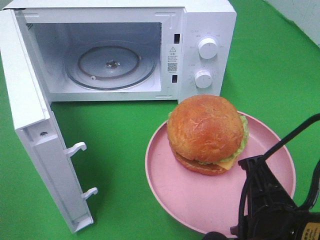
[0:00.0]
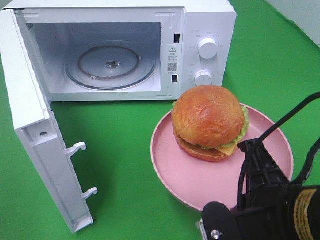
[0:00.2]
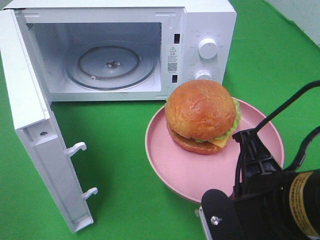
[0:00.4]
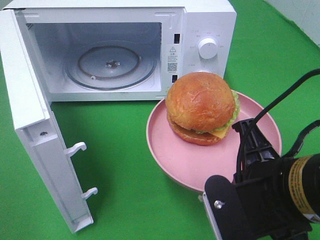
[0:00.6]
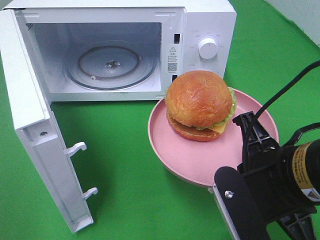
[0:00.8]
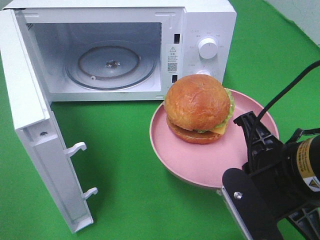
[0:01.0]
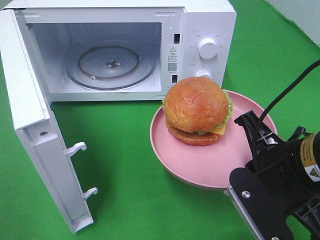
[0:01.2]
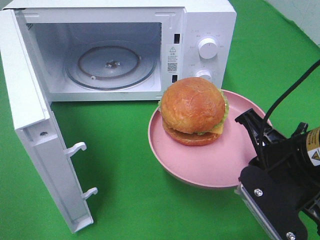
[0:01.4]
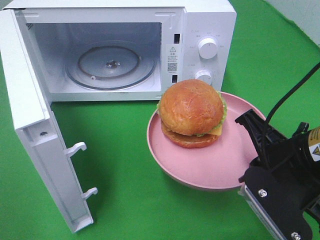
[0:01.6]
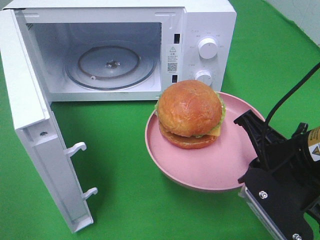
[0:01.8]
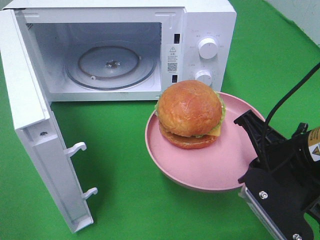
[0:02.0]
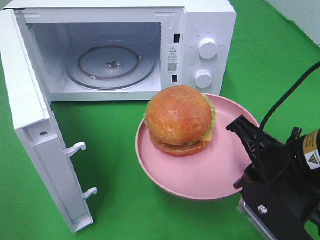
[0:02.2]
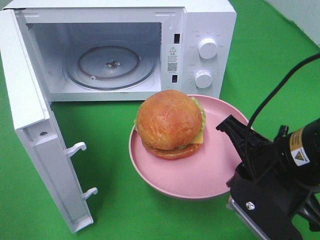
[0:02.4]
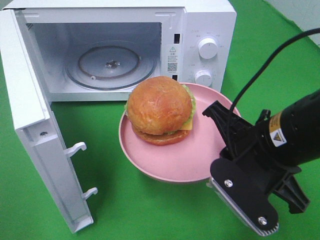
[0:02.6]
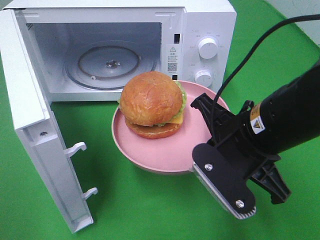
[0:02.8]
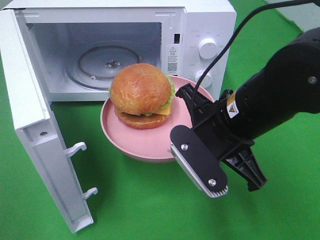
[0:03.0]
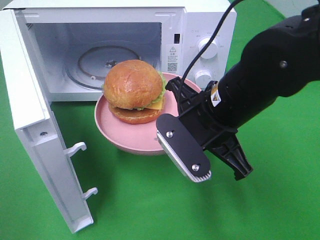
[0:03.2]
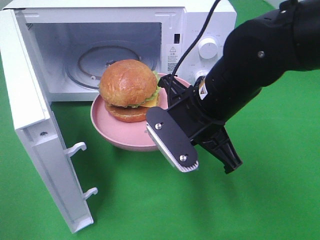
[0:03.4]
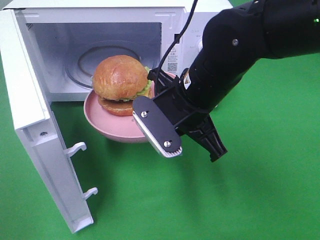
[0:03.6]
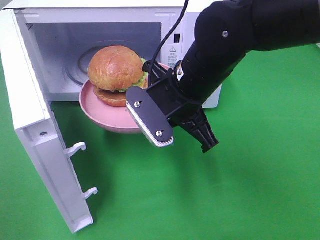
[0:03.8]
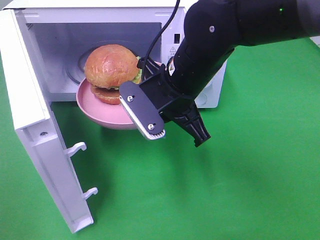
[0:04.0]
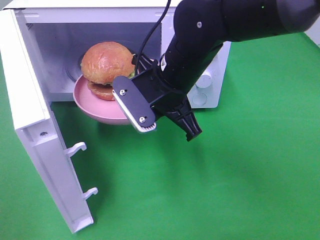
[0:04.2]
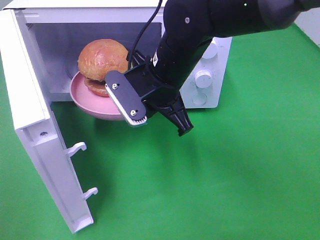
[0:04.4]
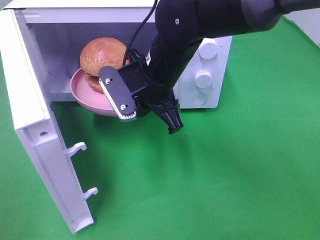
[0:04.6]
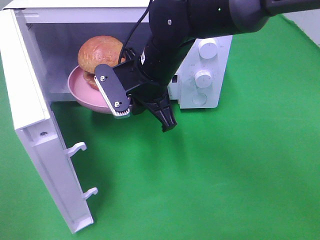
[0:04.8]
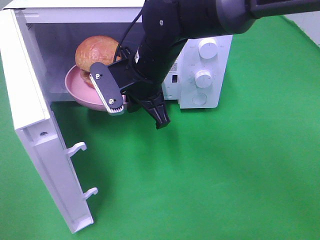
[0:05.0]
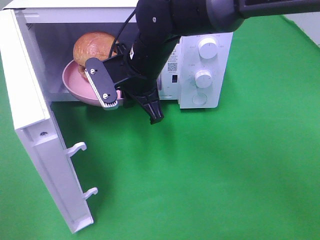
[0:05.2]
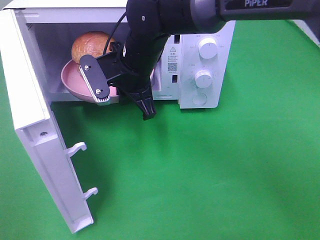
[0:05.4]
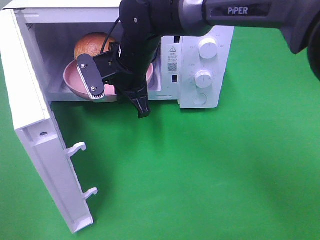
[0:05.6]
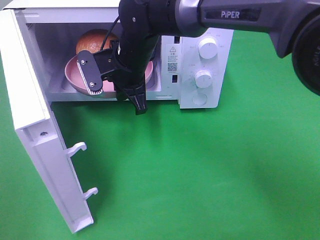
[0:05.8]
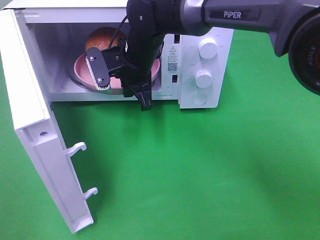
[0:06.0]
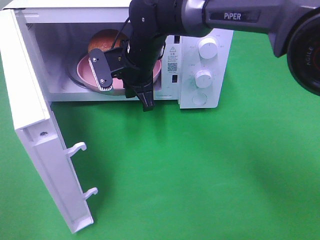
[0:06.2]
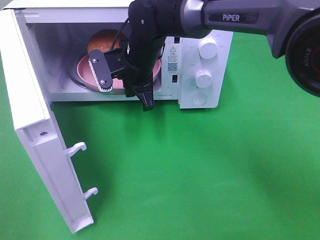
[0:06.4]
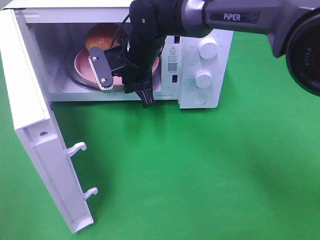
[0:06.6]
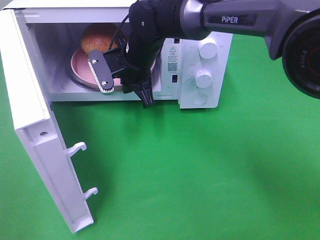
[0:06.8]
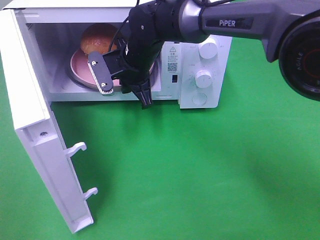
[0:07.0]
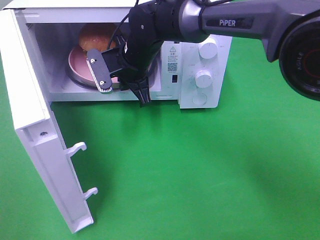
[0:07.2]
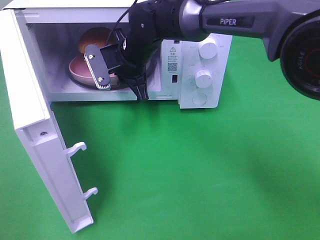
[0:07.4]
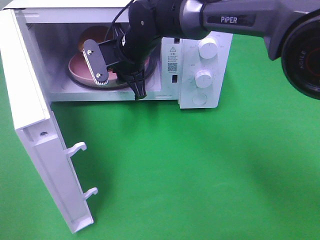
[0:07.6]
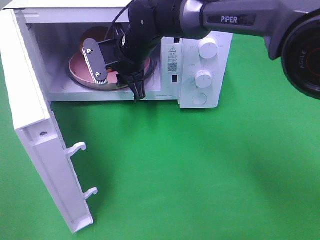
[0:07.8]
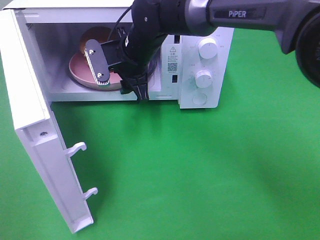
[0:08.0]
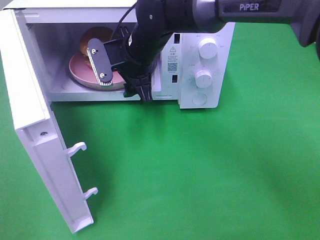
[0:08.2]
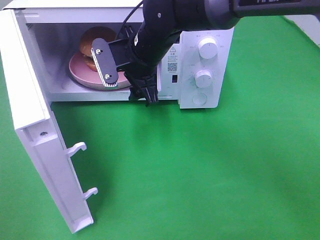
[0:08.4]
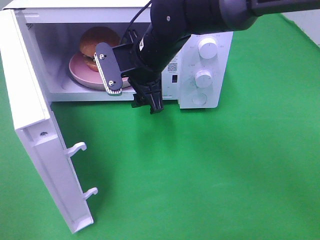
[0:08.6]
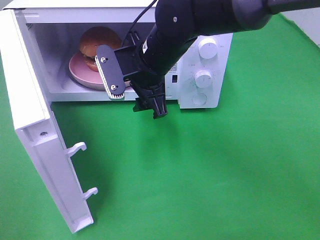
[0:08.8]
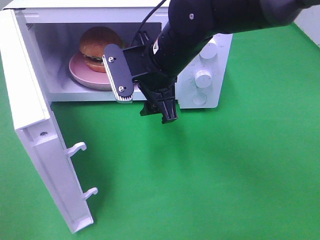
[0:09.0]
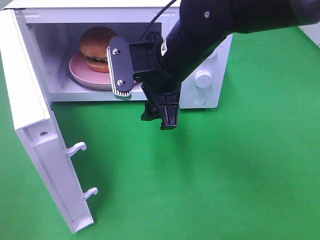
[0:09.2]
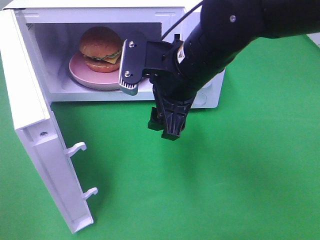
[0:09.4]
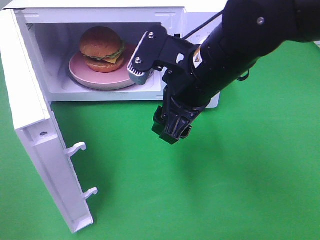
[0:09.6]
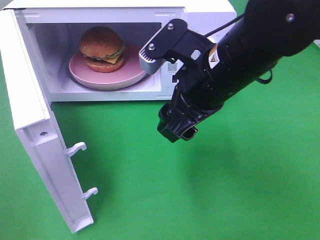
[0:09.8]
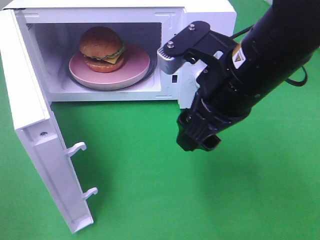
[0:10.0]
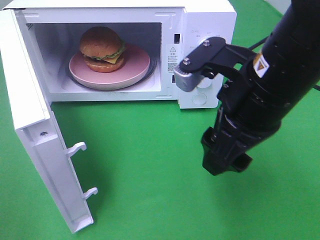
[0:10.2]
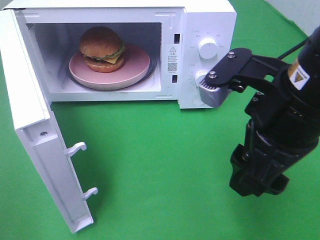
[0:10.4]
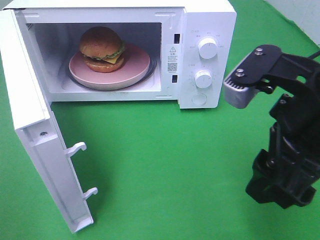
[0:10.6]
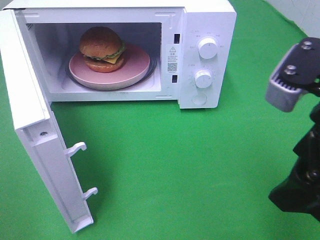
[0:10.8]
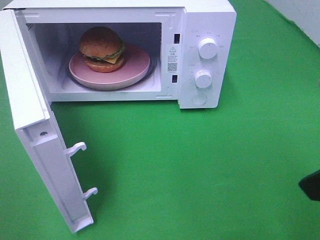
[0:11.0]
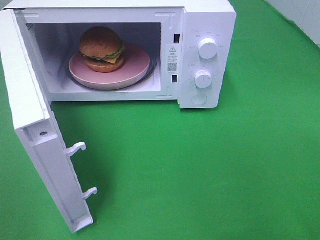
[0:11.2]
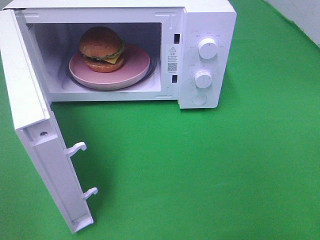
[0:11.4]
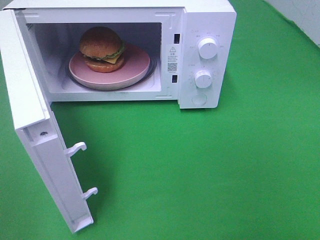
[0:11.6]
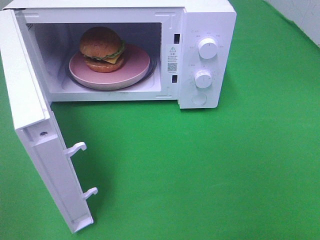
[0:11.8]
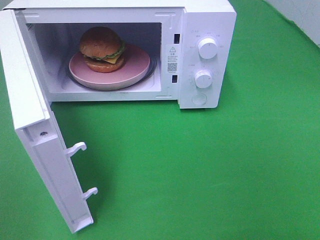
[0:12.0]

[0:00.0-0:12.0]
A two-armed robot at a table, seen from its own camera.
Task of the whole recording: Heat the burger.
Step, 0:00.0 to 0:09.0: Right hand: place the plate in the microwave.
0:00.0 to 0:01.6: The right gripper heads forward and to the right, covering about 10 cm.
0:01.6 to 0:03.0: The right gripper travels to the left and forward by roughly 10 cm.
0:03.0 to 0:04.4: The right gripper travels forward and to the left by about 10 cm.
0:04.4 to 0:06.0: The right gripper moves forward, roughly 10 cm.
0:06.0 to 0:07.6: The right gripper opens.
0:07.6 to 0:09.0: The right gripper shifts approximately 10 cm backward and to the right, and opens up.
0:09.0 to 0:10.4: The right gripper travels backward and to the right by about 20 cm.
0:10.4 to 0:12.0: The right gripper travels backward and to the right by approximately 25 cm.

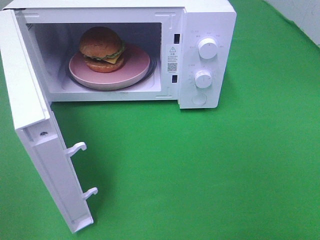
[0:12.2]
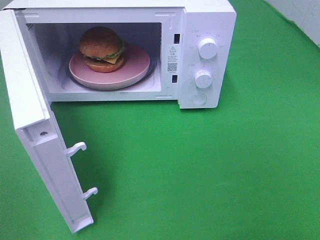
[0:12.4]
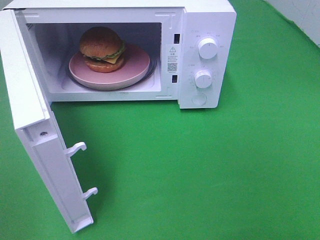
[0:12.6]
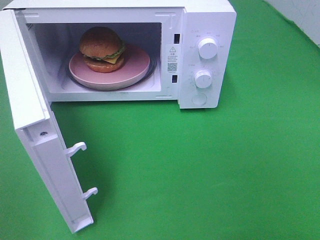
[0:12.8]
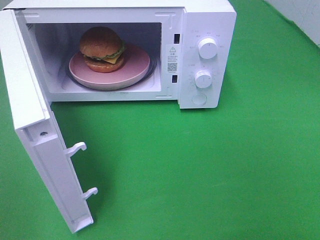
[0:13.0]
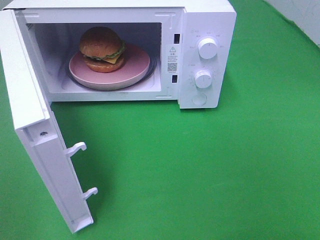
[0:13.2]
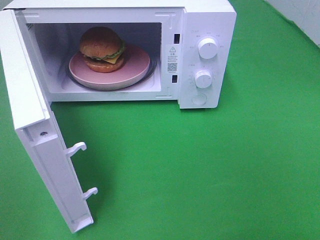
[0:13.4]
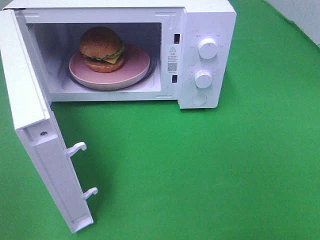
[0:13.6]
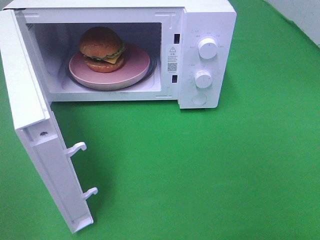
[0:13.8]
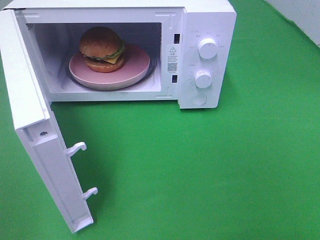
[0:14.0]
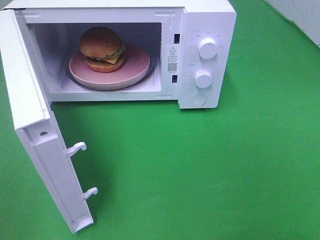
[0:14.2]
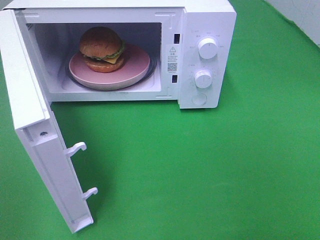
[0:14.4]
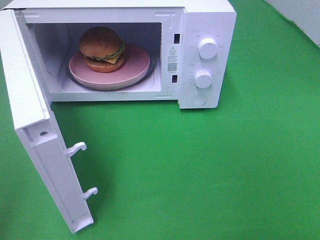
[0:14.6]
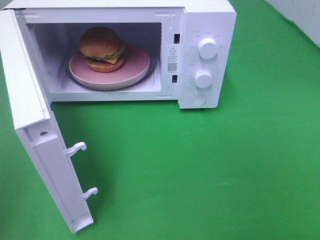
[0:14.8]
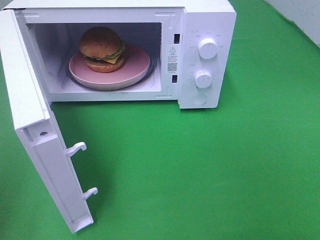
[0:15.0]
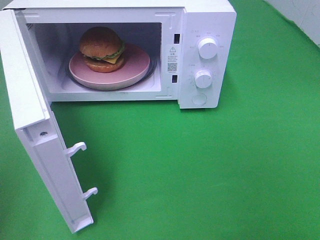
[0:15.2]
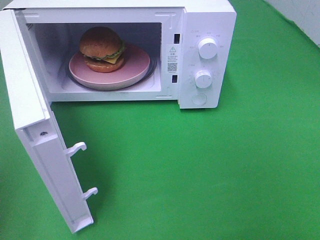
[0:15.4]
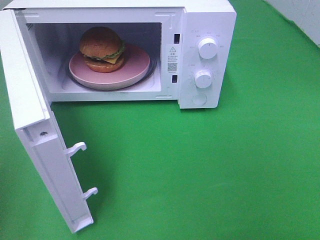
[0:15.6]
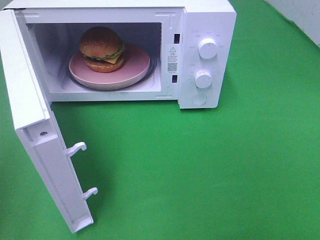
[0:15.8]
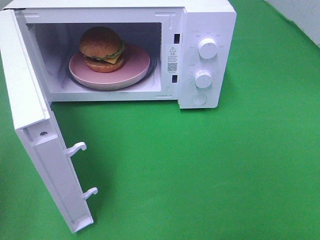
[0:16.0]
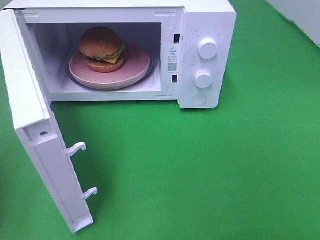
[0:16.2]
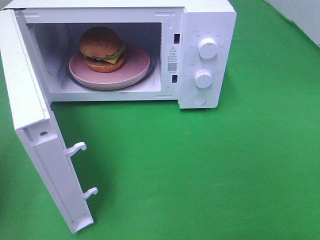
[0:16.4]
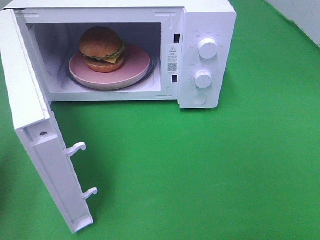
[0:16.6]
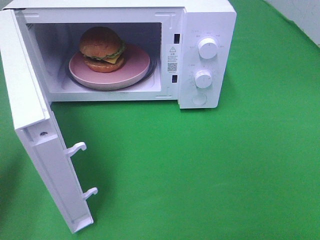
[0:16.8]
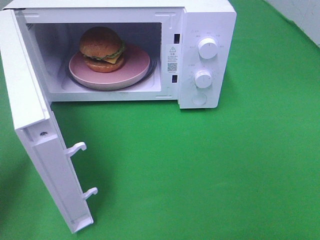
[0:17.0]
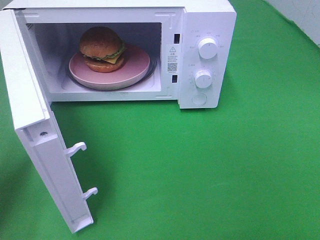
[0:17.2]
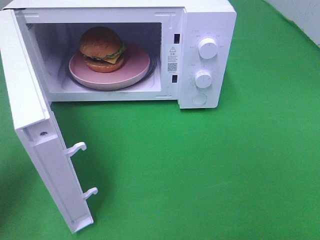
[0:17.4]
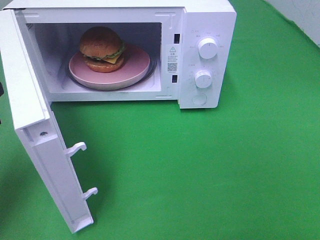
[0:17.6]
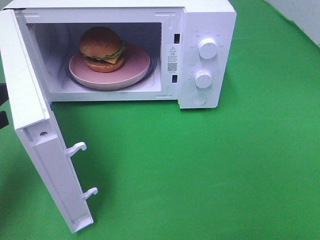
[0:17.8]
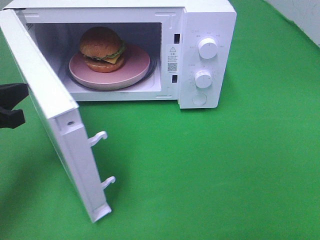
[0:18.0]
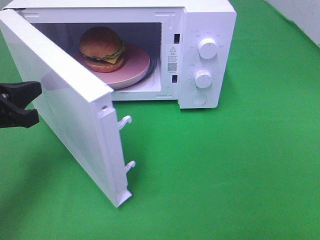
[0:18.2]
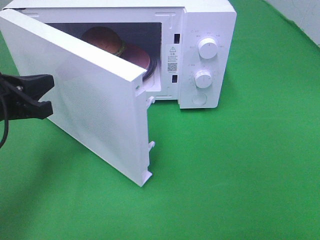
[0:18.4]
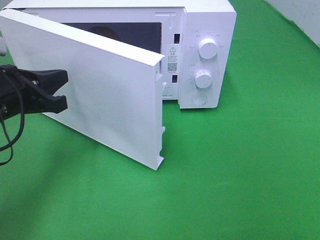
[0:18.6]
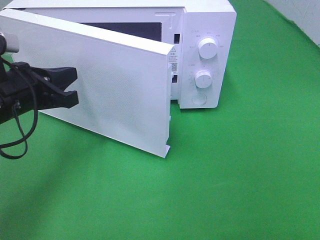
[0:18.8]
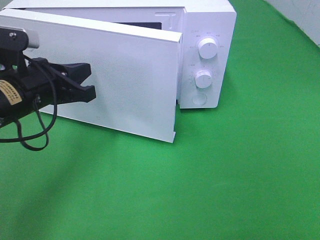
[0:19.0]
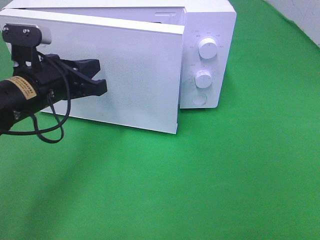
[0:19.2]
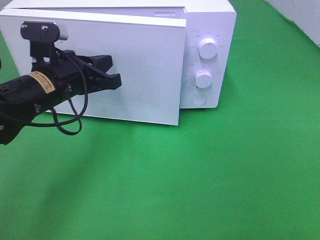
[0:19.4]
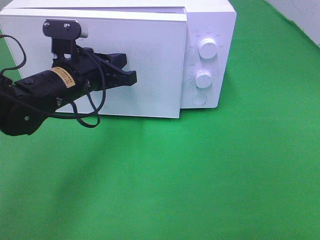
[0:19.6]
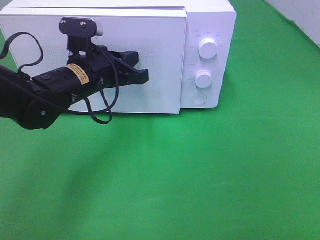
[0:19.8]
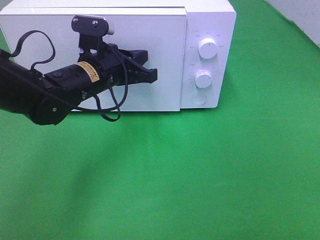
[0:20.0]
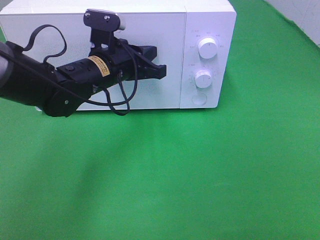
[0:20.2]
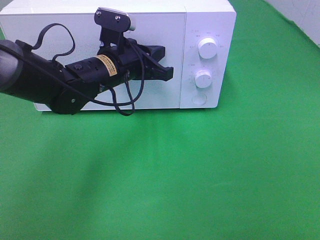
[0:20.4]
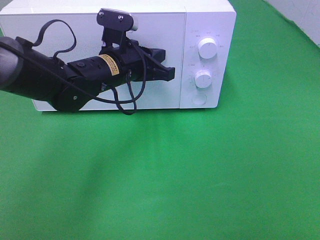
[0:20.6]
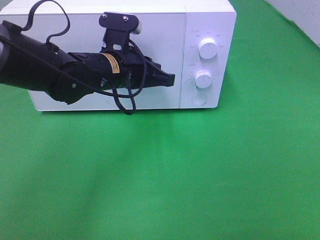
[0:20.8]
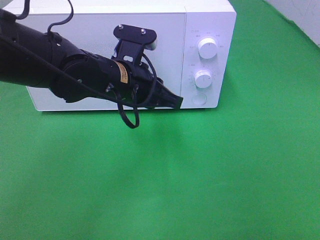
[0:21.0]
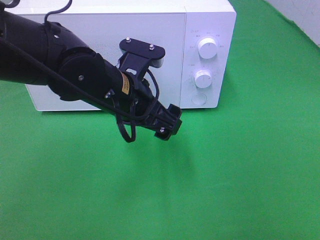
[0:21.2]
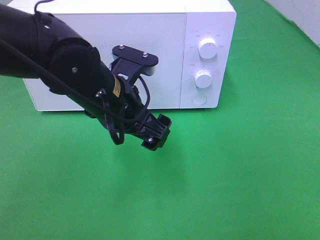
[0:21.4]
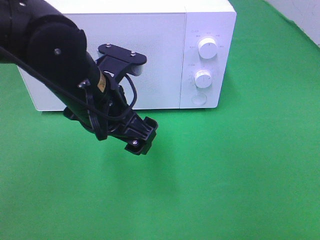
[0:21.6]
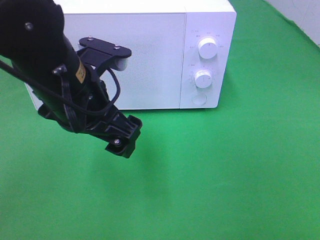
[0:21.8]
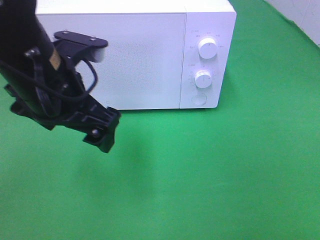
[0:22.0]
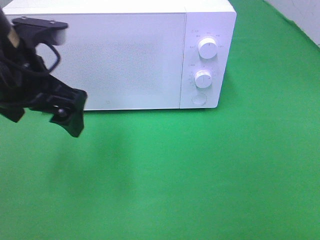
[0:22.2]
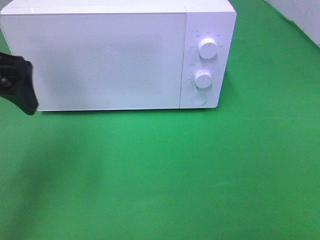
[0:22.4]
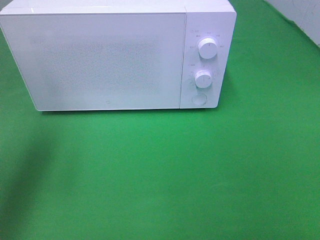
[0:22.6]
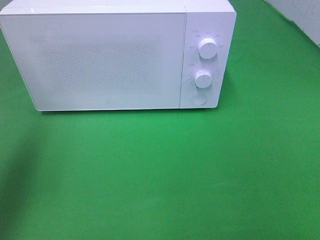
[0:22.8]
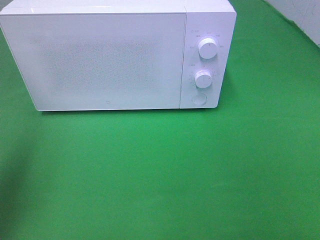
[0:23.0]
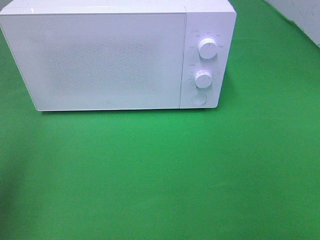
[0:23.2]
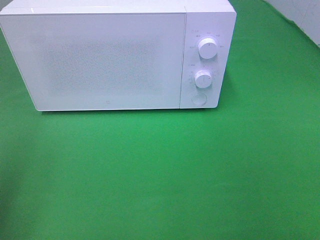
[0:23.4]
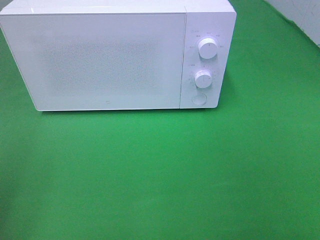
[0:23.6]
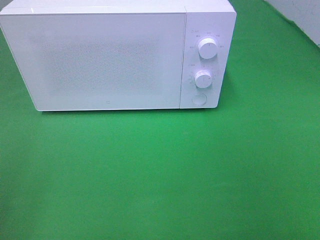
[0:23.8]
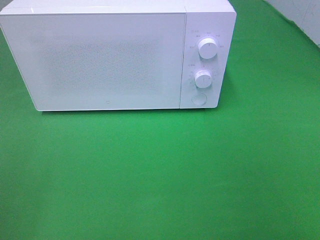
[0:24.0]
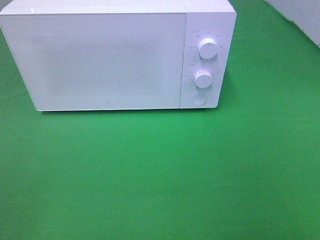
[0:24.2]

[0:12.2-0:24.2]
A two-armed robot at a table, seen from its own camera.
Task of the whole recording: Heat the burger.
Step, 0:12.2 to 0:21.0: Left hand: close the microwave door.
0:12.2 to 0:13.8: The two grippers keep their place.
0:16.6 to 0:18.2: The left gripper is displaced to the right and forward by approximately 10 cm.
0:18.2 to 0:19.8: The left gripper goes about 20 cm to the right and forward.
0:19.8 to 0:21.2: The left gripper moves backward and to the right, roughly 10 cm, and opens up.
0:21.2 to 0:22.6: The left gripper shifts approximately 25 cm to the left and upward.
0:22.6 to 0:24.2: The left gripper heads backward, covering about 25 cm.
